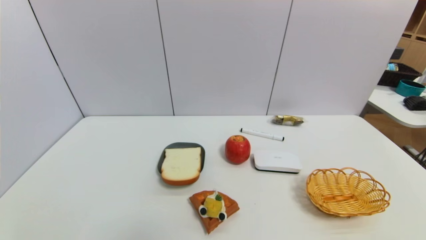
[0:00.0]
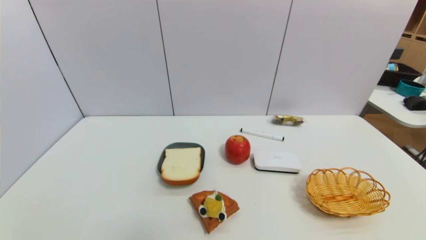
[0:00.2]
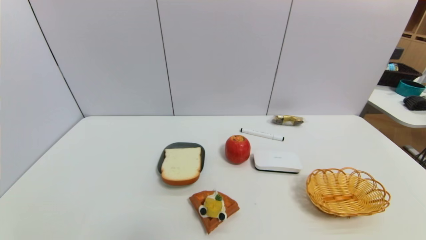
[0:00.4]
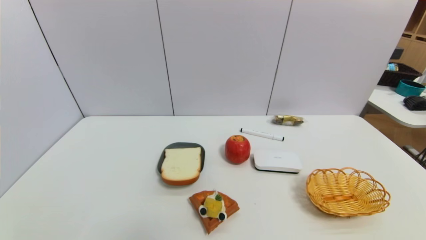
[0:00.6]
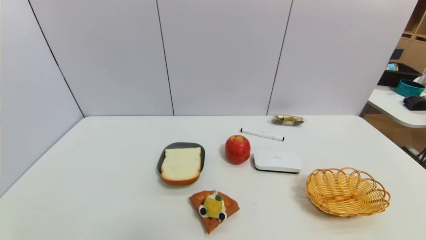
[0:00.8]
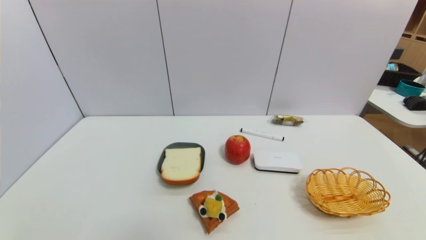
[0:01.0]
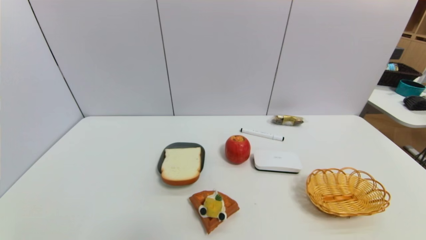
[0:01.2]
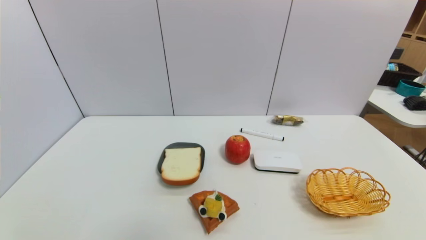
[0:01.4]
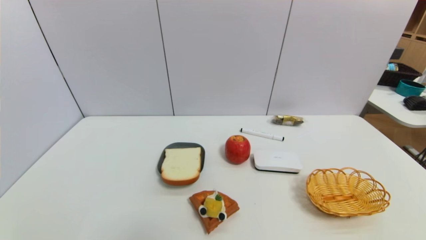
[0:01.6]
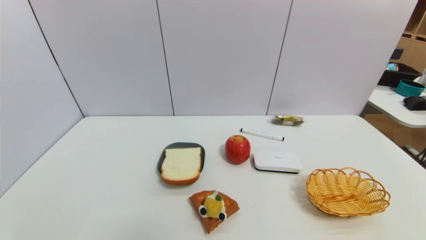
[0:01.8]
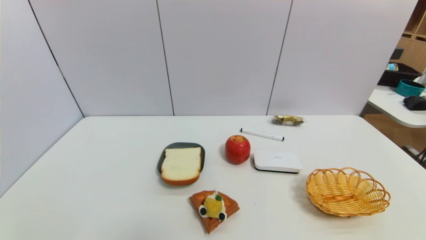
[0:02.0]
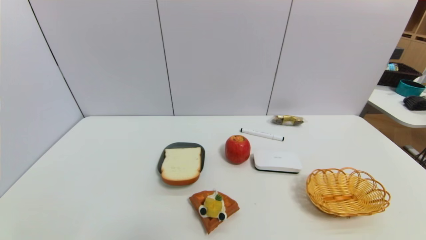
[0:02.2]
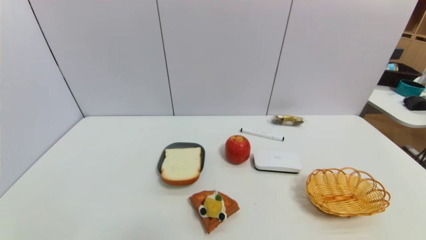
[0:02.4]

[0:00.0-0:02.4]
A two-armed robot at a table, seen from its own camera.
Task of the whole recording: use a gripper to pick the target object and place on the dish.
0:01.2 to 0:02.4: Neither gripper changes place.
